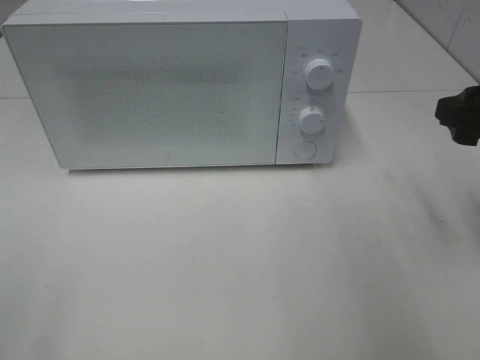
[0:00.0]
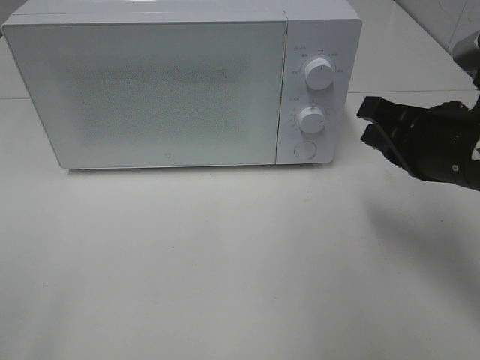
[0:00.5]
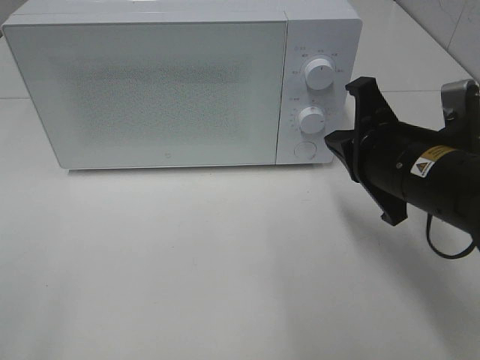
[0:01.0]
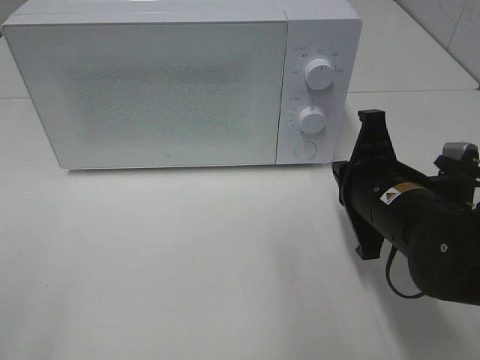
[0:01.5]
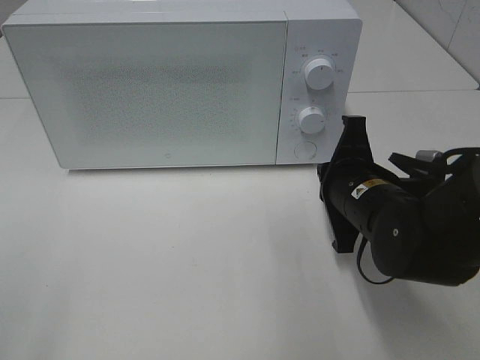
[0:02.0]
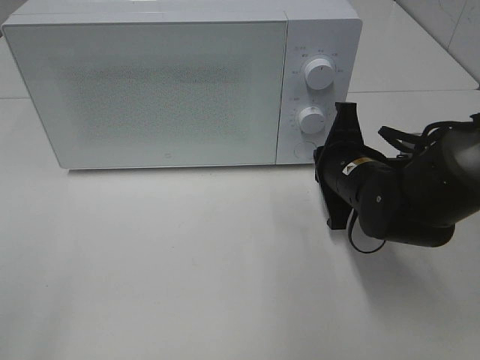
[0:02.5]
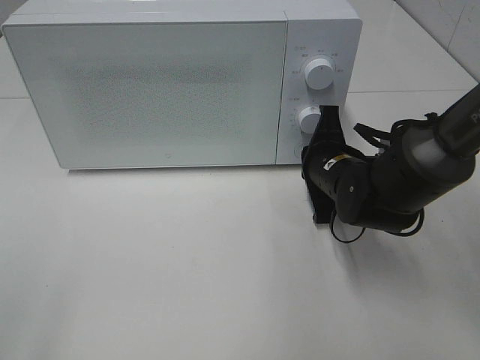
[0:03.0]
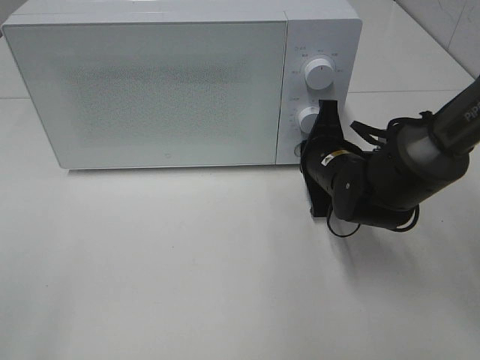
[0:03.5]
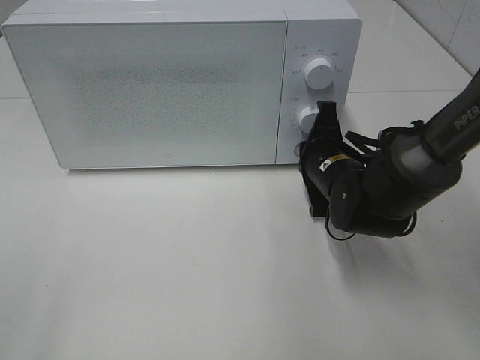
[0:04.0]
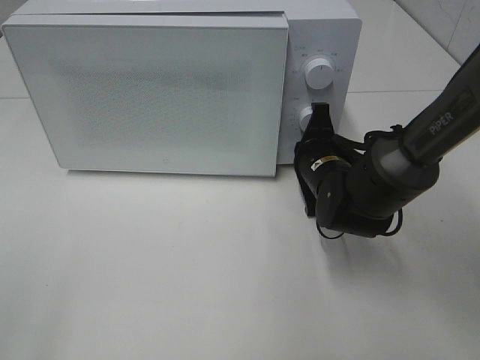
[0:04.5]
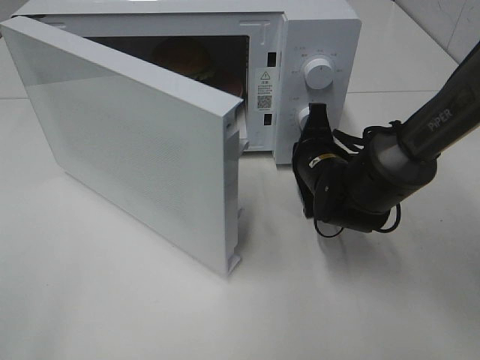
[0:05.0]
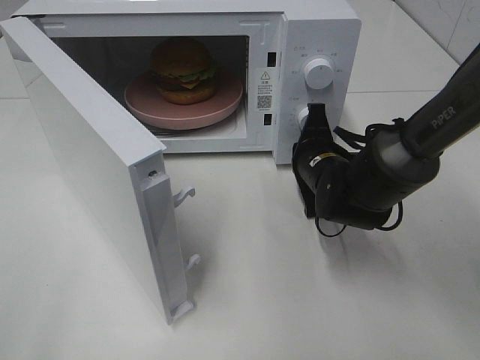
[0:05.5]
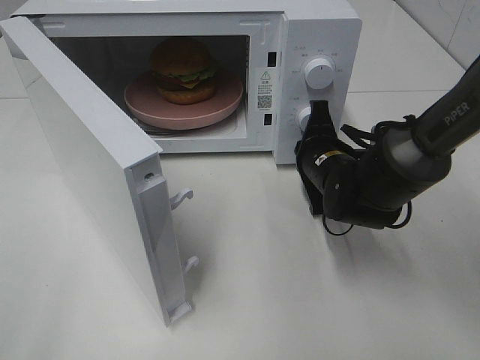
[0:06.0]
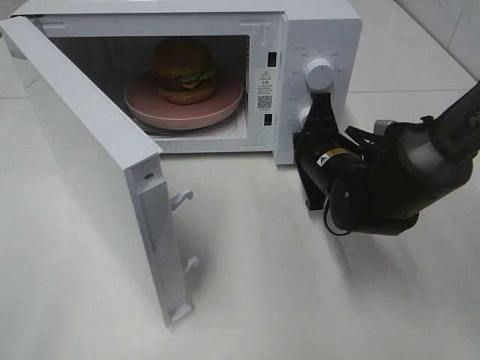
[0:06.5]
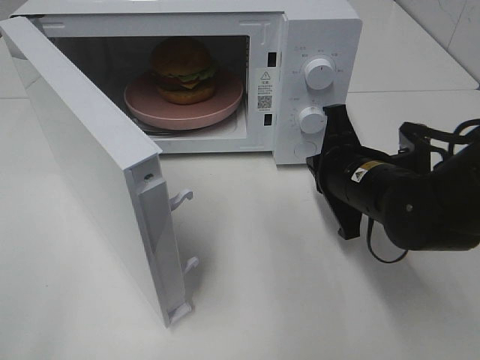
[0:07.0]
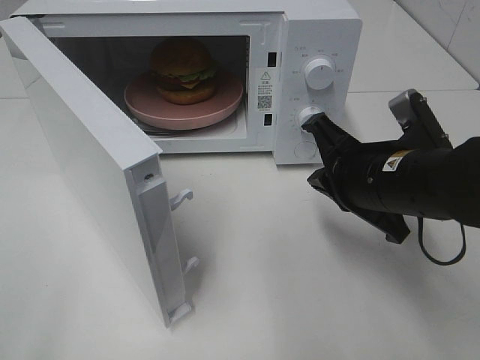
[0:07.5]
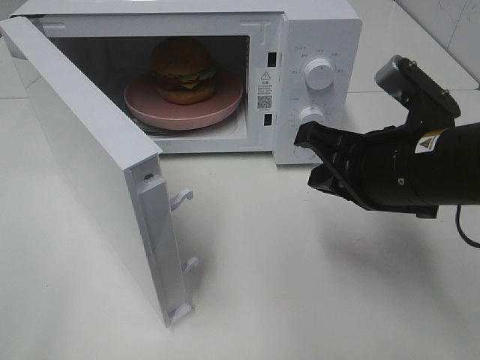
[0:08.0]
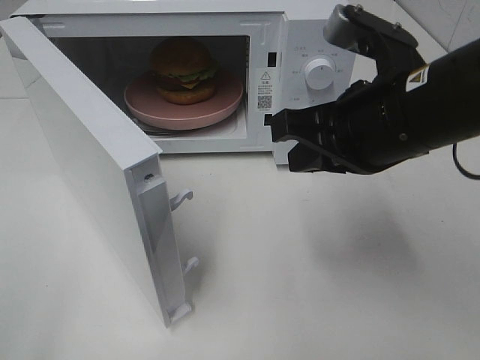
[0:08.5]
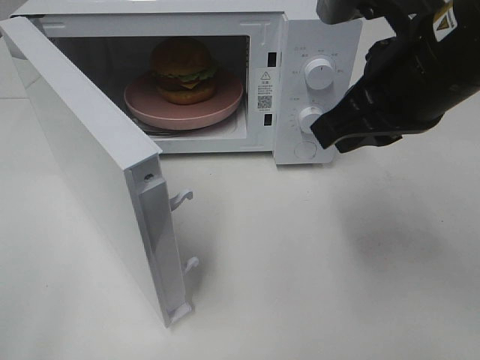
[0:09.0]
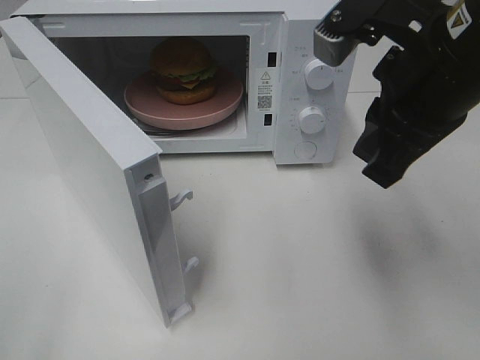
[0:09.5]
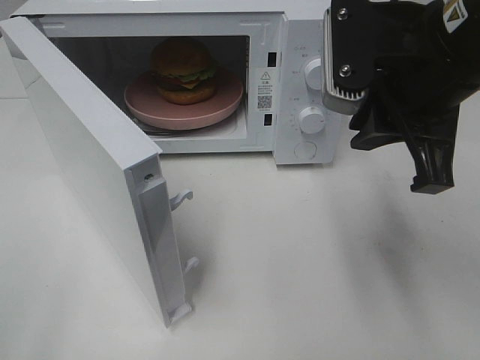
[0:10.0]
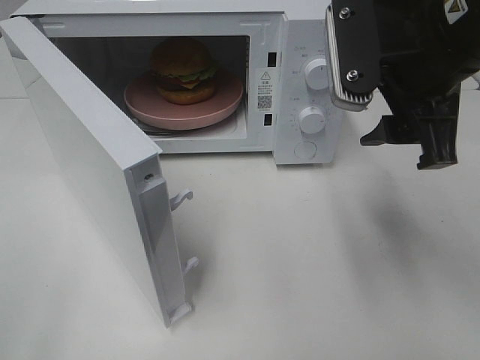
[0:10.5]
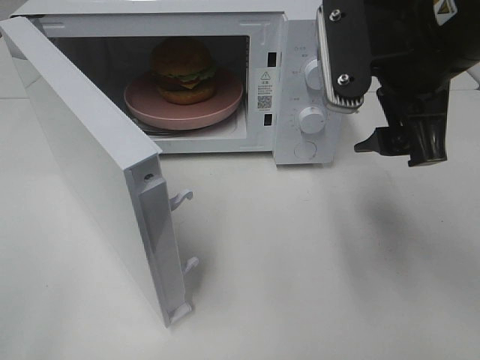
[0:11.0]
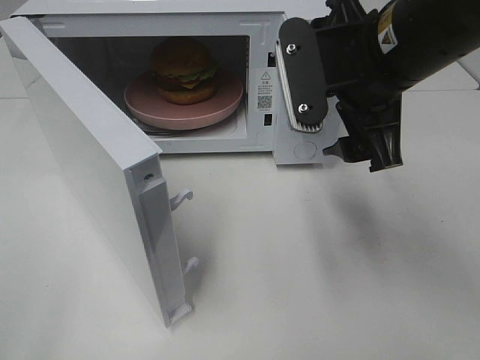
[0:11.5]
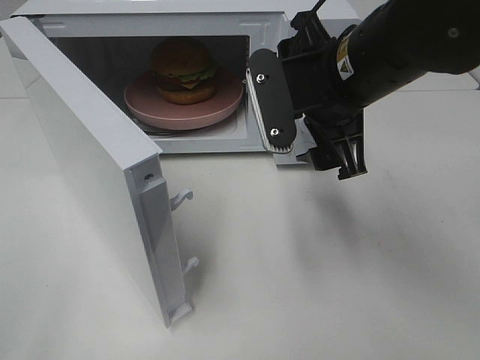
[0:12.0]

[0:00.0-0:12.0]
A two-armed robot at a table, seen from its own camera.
Task of the whole recording: Heat the burger.
Step, 0.0 to 6.0 s: Right hand: press the switch.
0.0 to 2.0 s: The right gripper travels to the left and downward by roughly 15 cm, and closes.
2.0 to 4.0 s: The right gripper is displaced forward by approximately 10 cm.
6.0 to 8.0 s: The right gripper heads backward and upward, covering some 20 cm.
8.0 to 10.0 s: The right gripper is displaced upward by approximately 10 cm.
10.0 to 12.0 s: The right gripper goes roughly 5 cm to the left, and opens.

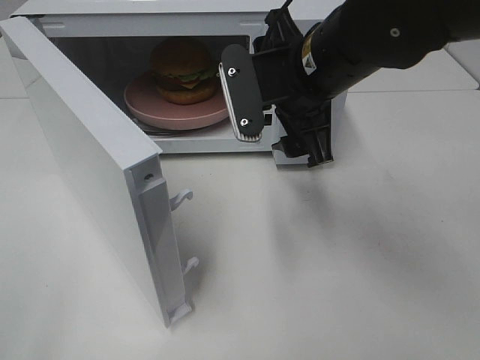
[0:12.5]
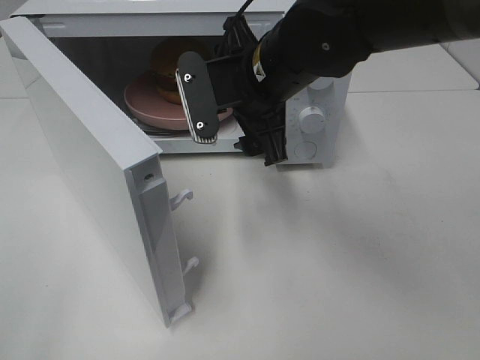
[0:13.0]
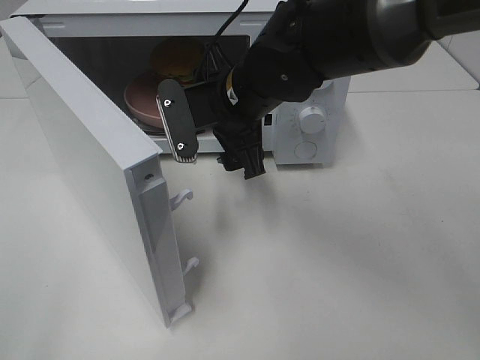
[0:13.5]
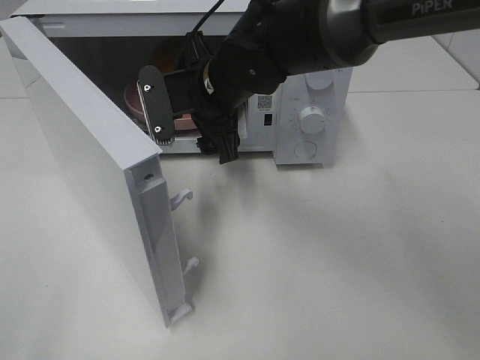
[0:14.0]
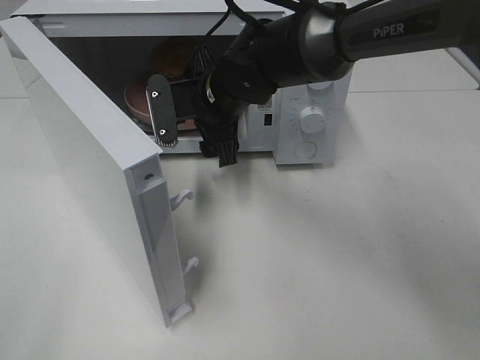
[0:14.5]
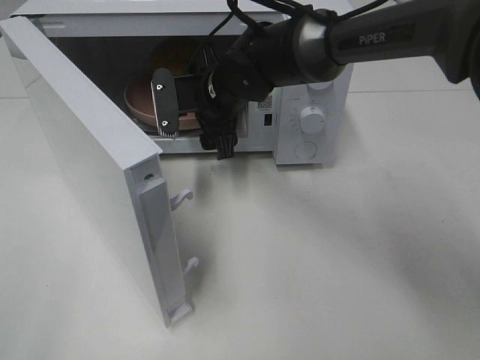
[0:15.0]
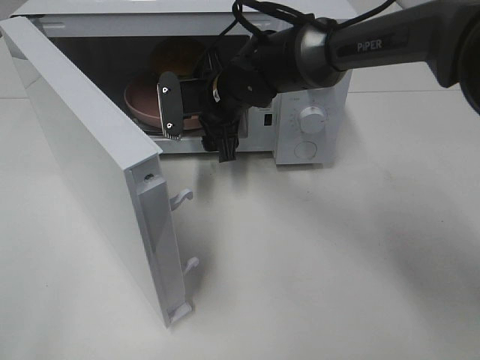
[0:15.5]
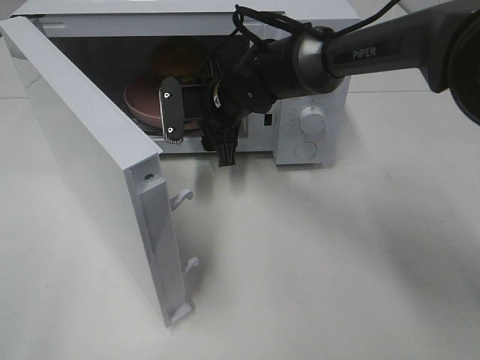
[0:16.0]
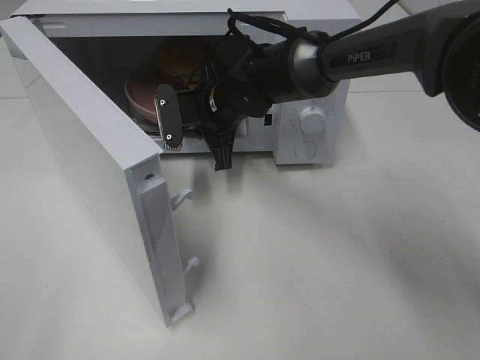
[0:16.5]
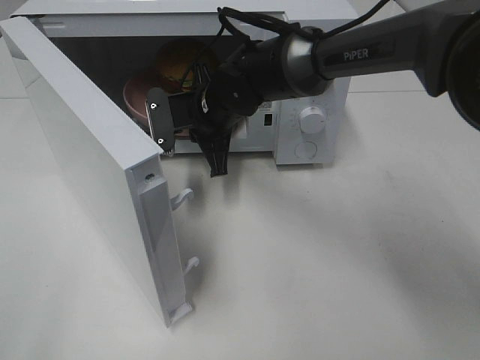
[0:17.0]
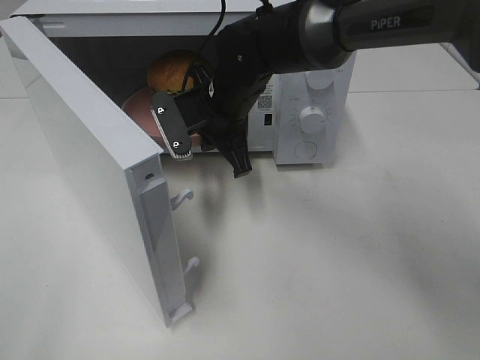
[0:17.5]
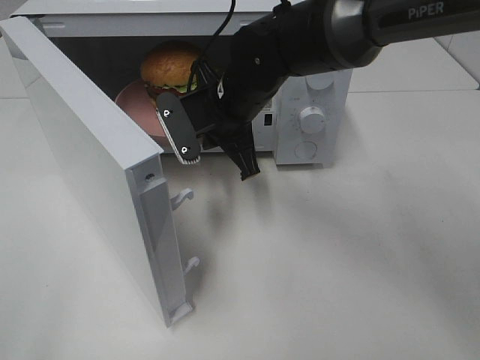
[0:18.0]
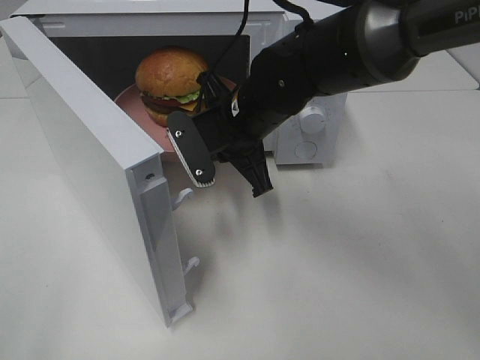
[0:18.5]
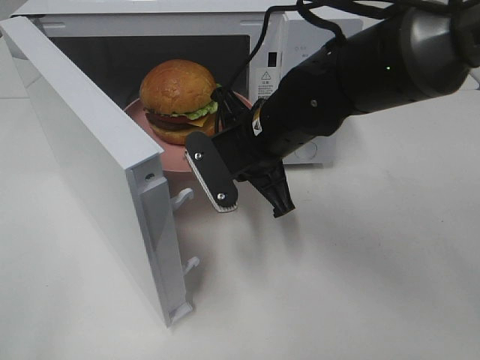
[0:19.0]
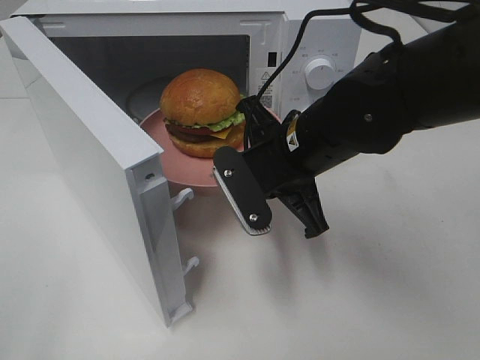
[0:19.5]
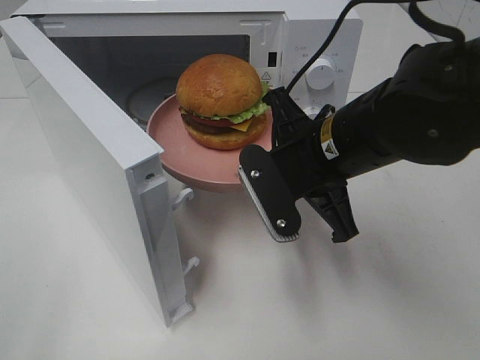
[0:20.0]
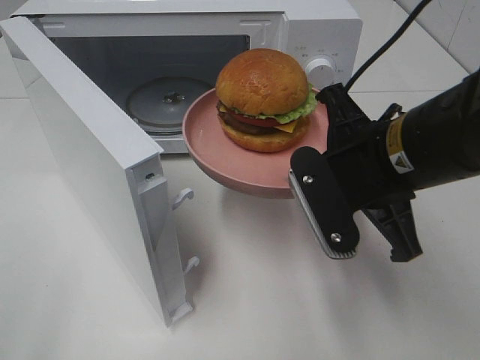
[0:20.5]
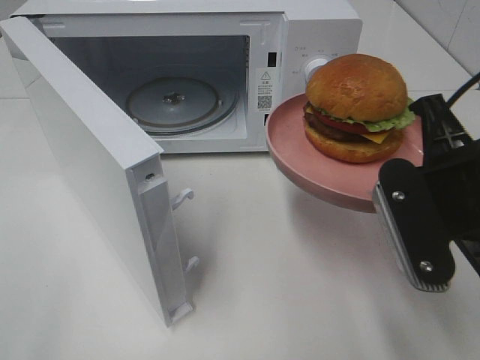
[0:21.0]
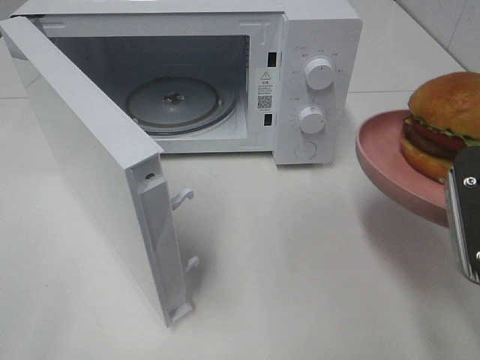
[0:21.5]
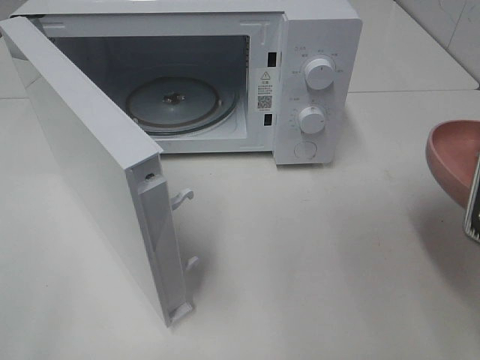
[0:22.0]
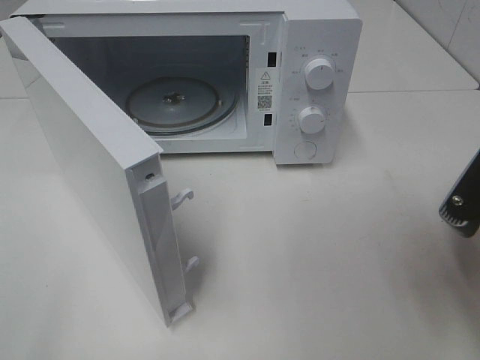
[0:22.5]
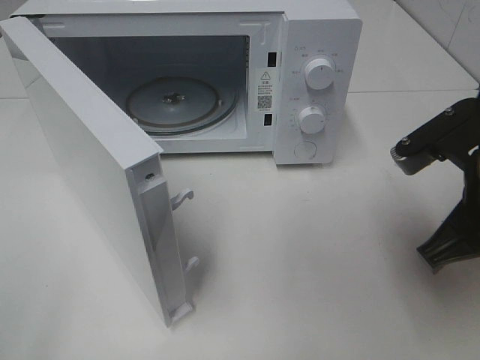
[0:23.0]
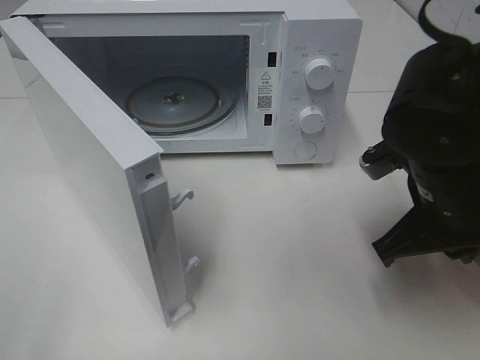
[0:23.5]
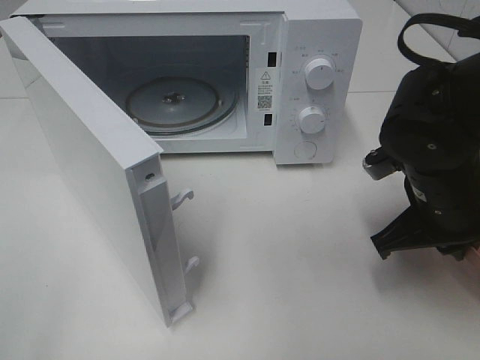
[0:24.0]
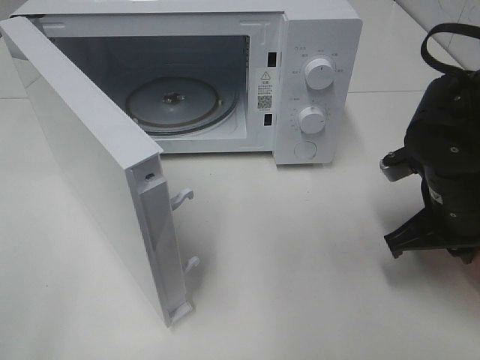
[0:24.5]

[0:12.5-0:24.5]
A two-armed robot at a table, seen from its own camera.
Task of the whole recording: Heat the burger.
Step, 12.5 to 16.0 s: Right hand: grab the plate with the hamburger.
12.5 to 14.5 s: The right gripper heads to the left, forward and downward, covering about 15 cm.
14.5 to 16.5 s: The right gripper closes up.
16.5 to 18.5 s: The right gripper moves backward, some 10 cm.
18.5 to 20.5 s: The right gripper moves backward, to the right and upward, roughly 20 cm.
20.5 to 22.5 s: The right gripper heads to the right and backward, covering roughly 10 cm.
22.5 to 24.5 s: The right gripper moves forward and downward, roughly 15 cm.

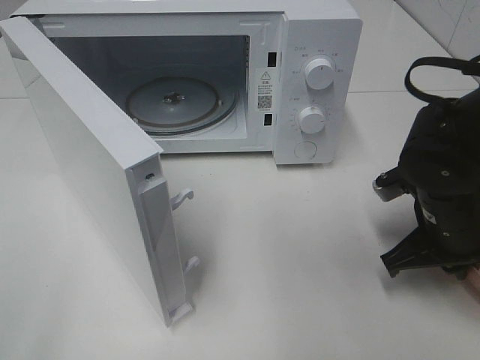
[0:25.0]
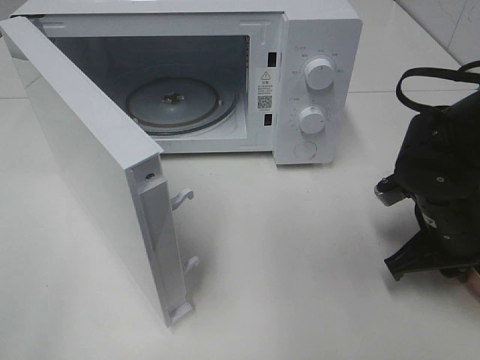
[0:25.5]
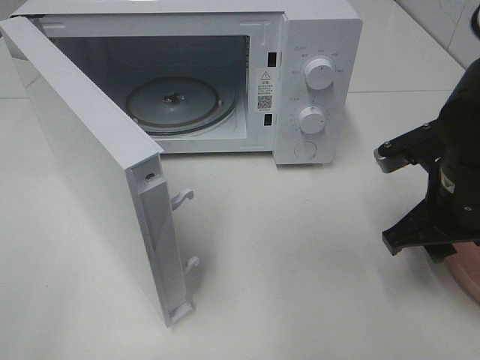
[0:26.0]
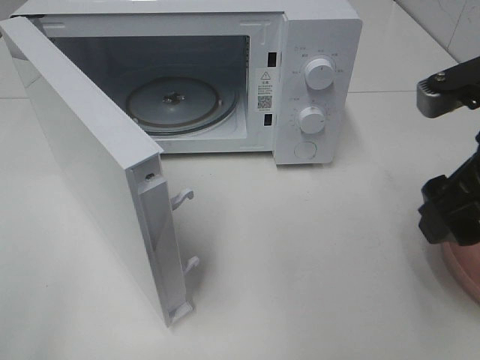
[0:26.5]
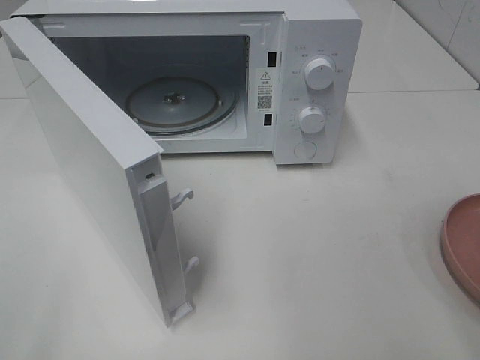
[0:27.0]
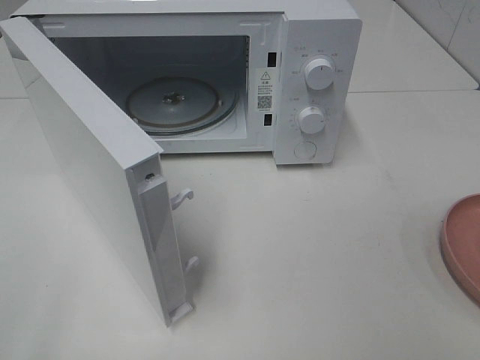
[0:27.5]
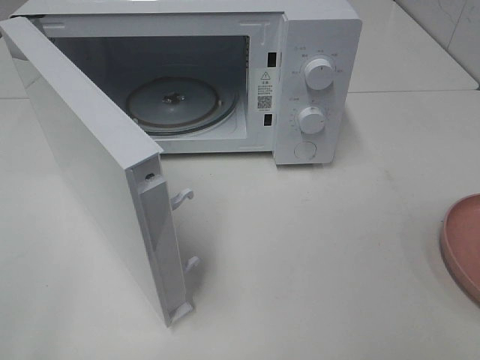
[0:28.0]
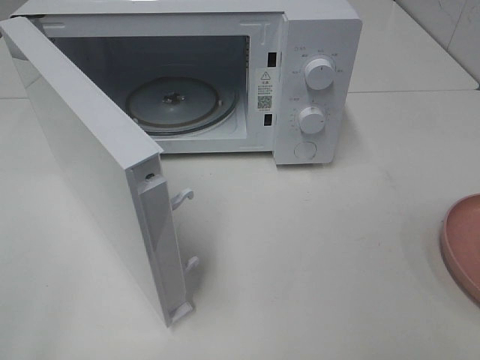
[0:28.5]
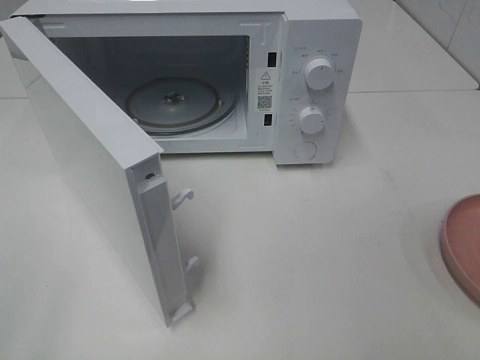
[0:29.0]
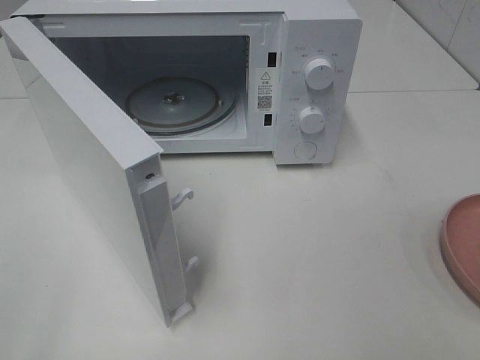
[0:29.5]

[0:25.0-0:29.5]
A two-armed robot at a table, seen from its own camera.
Task of the whole recording: Heat the burger.
25.0 to 27.0 s: The right gripper moves upward and backward, some 25 cm, and opens its fingers.
